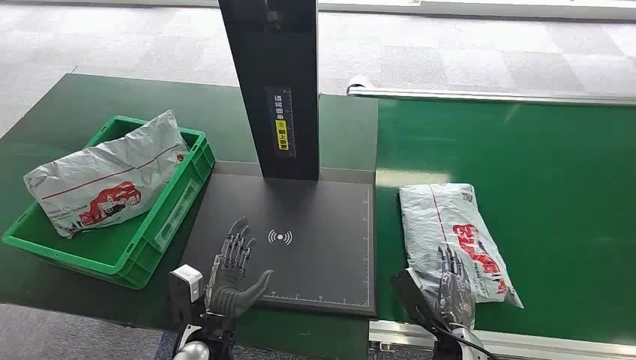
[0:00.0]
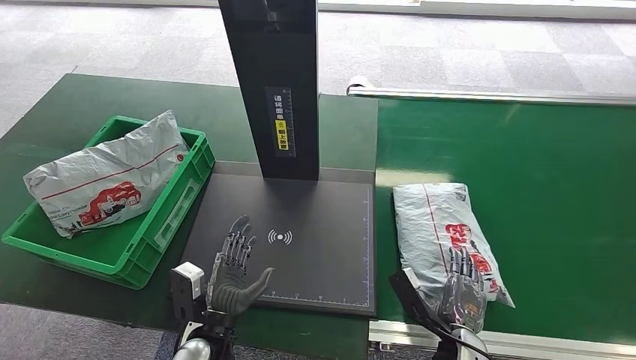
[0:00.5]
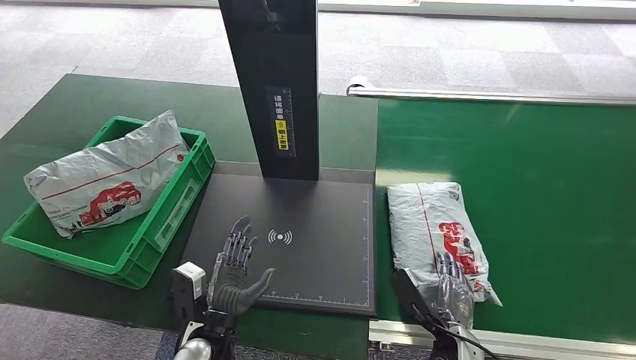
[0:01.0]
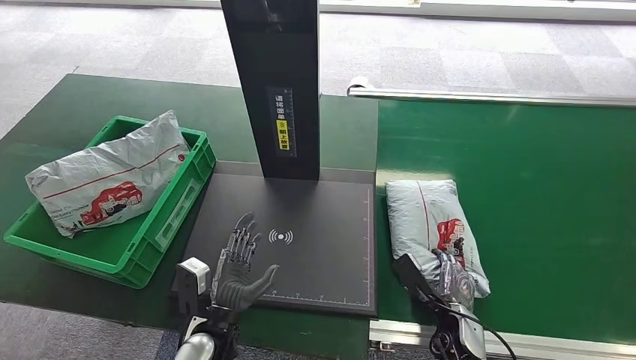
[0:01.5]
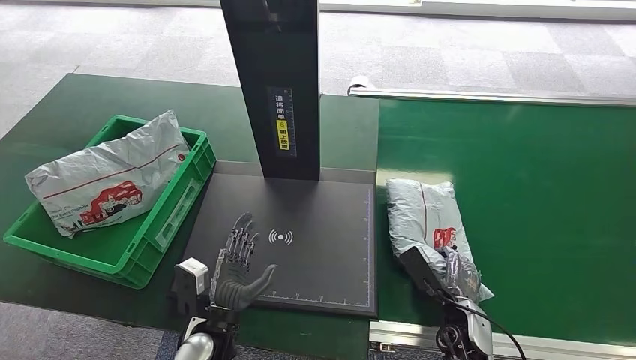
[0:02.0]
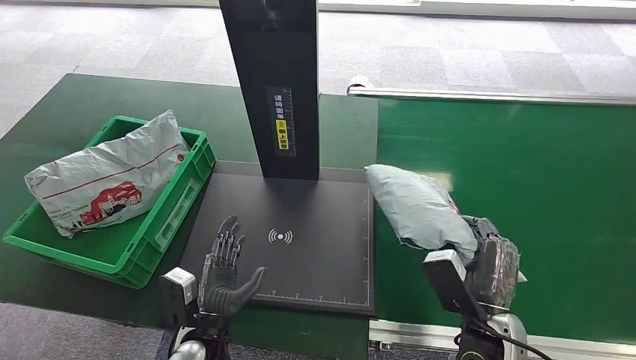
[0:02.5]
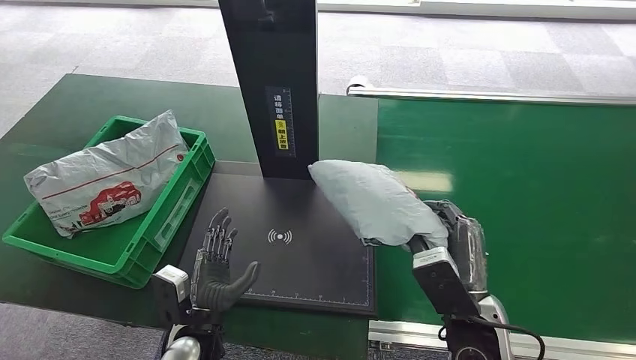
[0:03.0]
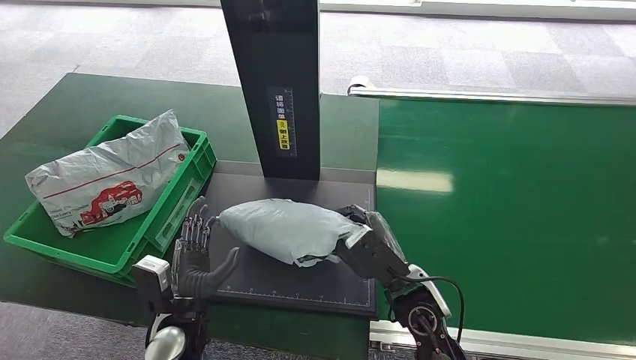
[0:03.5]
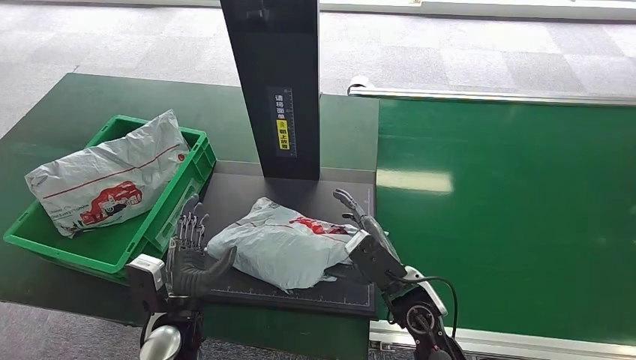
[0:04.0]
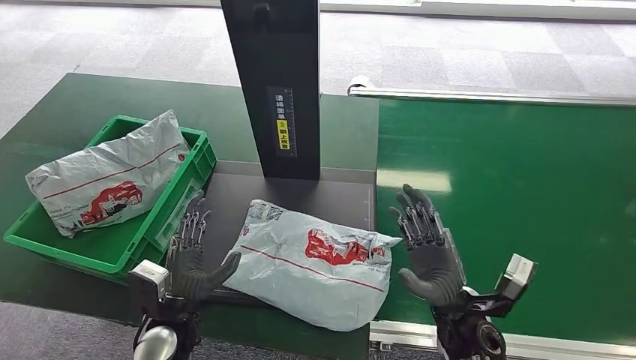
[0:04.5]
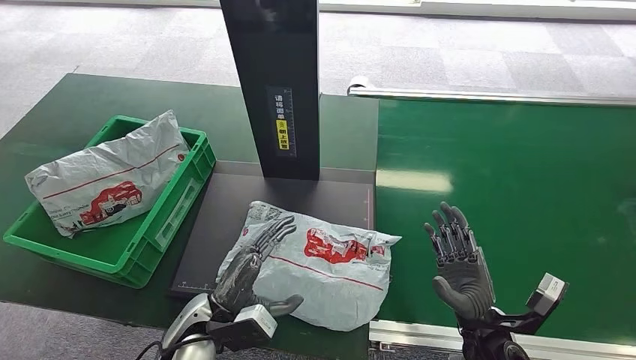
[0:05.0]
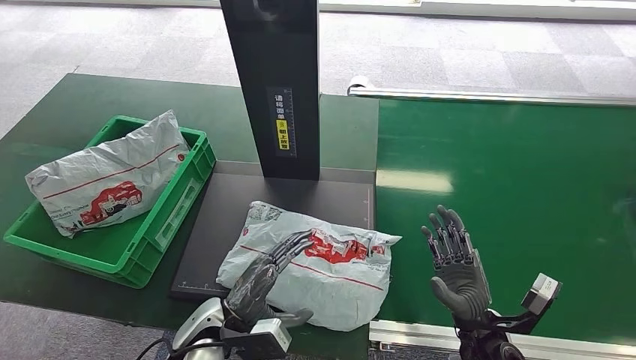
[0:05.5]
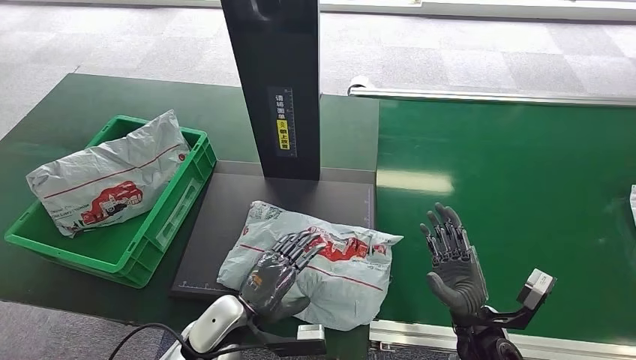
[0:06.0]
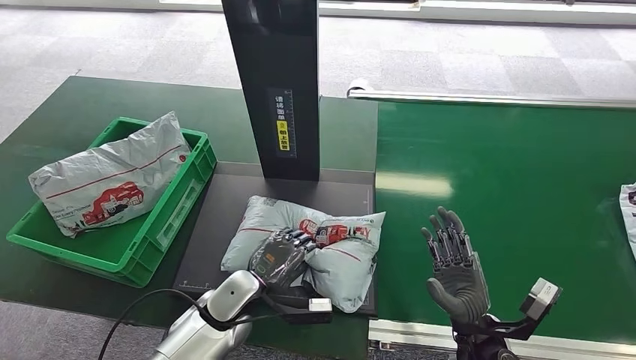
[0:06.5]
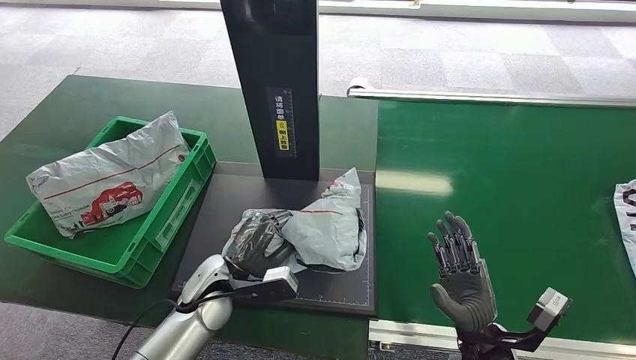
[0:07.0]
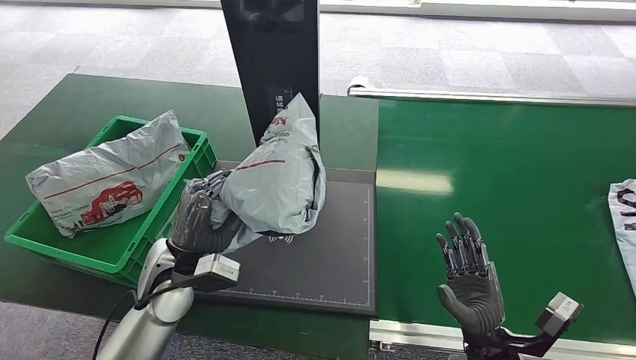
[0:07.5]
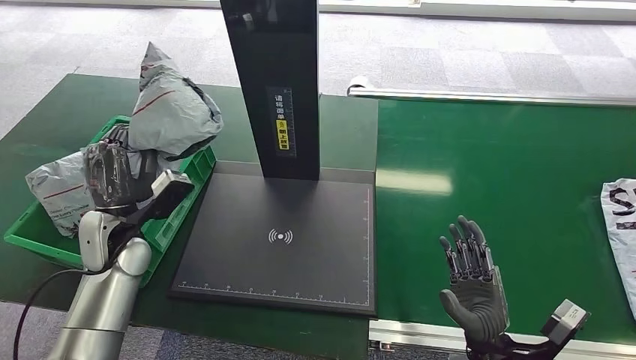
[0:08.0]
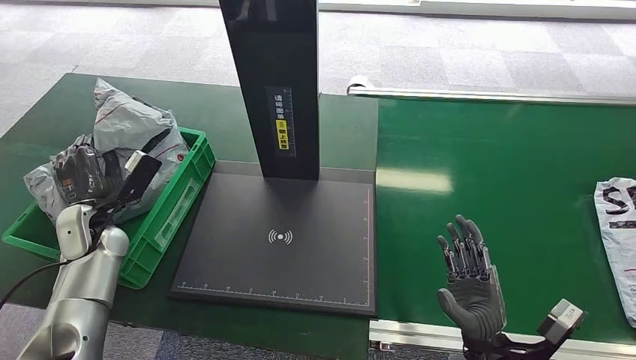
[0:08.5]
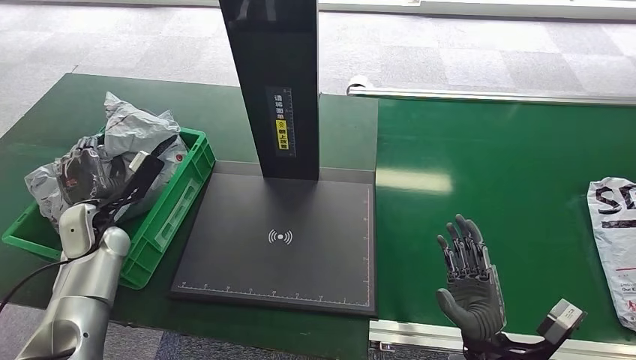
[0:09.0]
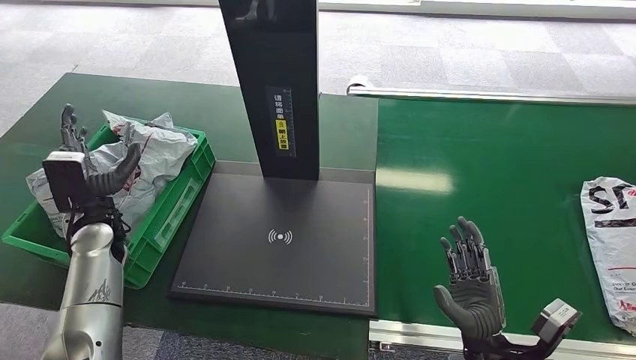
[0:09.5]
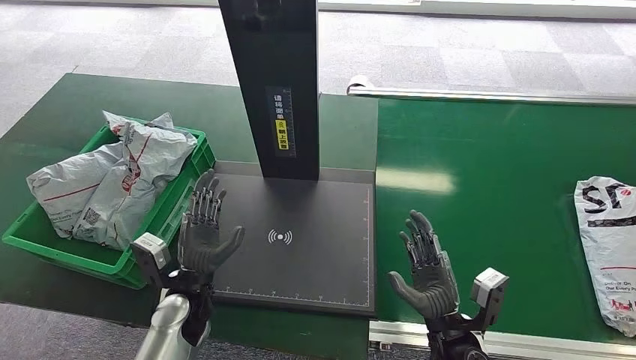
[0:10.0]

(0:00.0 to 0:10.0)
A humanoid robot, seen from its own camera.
Step, 0:00.0 - 0:03.0: Pick up the package from the conveyor belt.
Step, 0:03.5 - 0:05.0: Place the package onto the inbound machine.
Step, 0:05.5 - 0:07.5: Pick up the package from the inbound machine.
Step, 0:08.0 - 0:10.0: Place the package into the parcel locker.
0:02.0 - 0:04.0: The left hand travels to the left by about 5 cm. The right hand shifts some 15 cm to the left and upward.
0:04.0 - 0:06.0: The left hand heads to the right, covering some 5 cm; the right hand moves to the right and downward, approximately 15 cm.

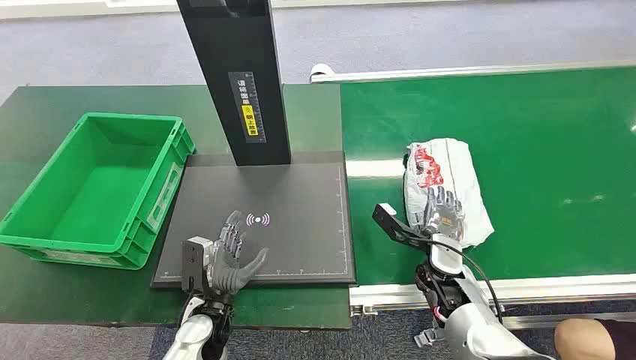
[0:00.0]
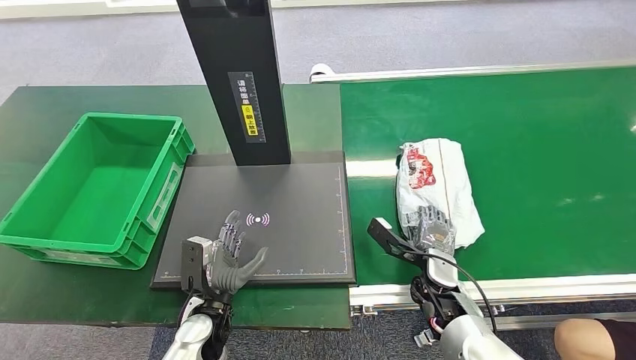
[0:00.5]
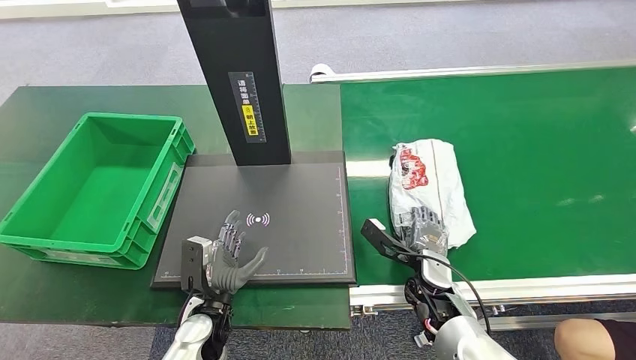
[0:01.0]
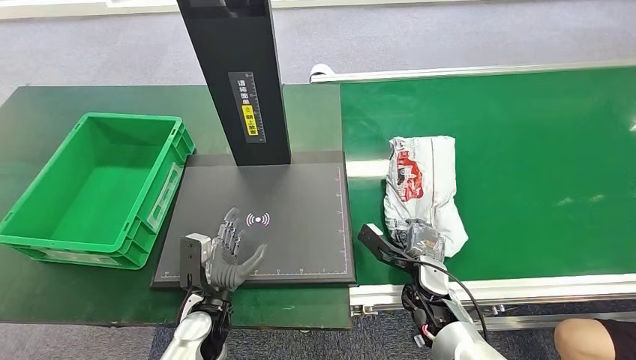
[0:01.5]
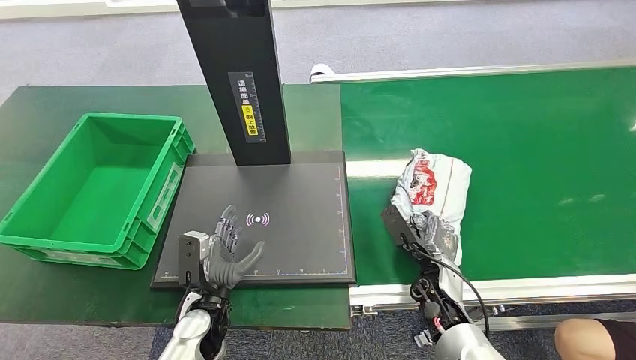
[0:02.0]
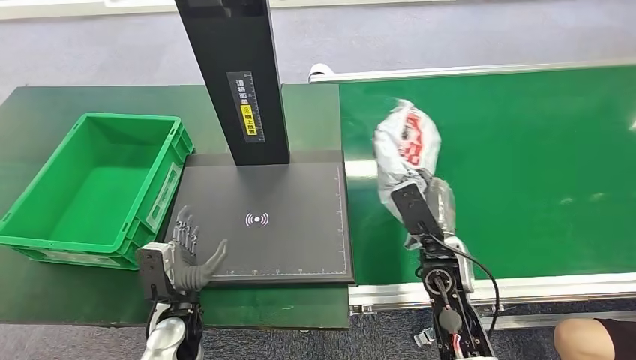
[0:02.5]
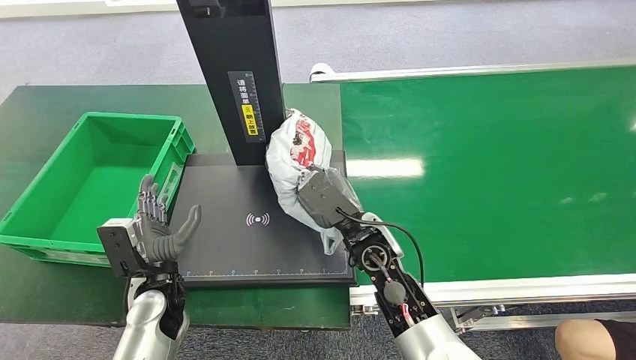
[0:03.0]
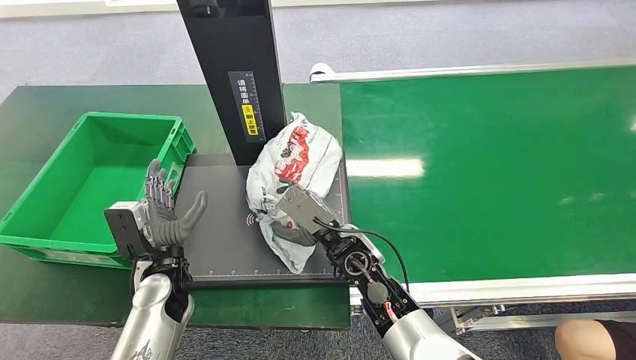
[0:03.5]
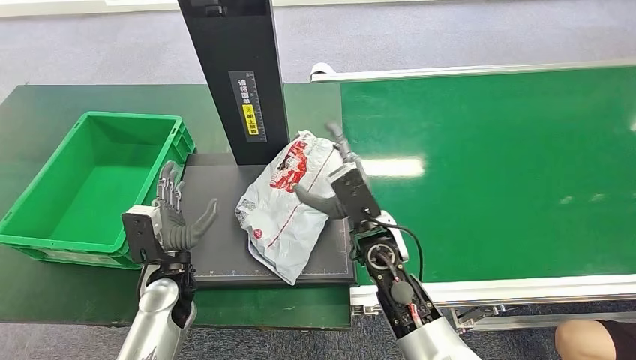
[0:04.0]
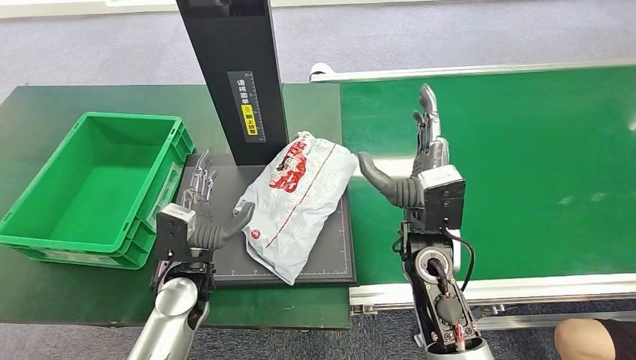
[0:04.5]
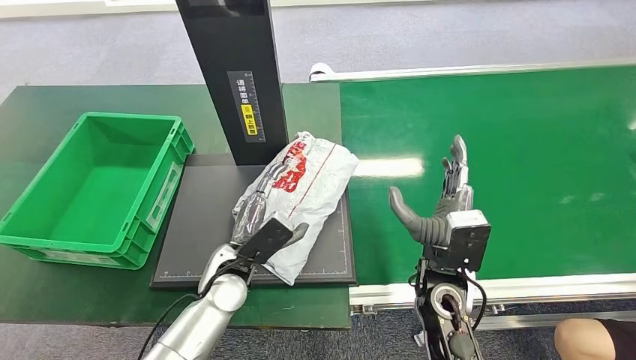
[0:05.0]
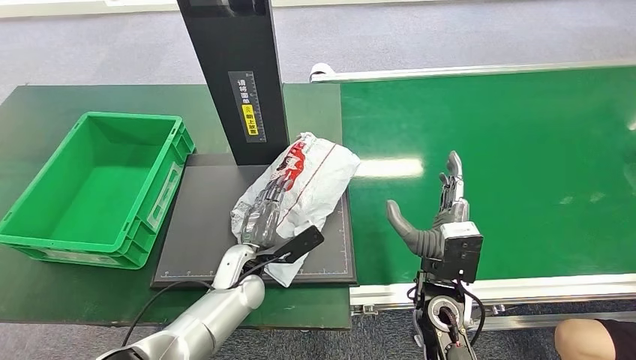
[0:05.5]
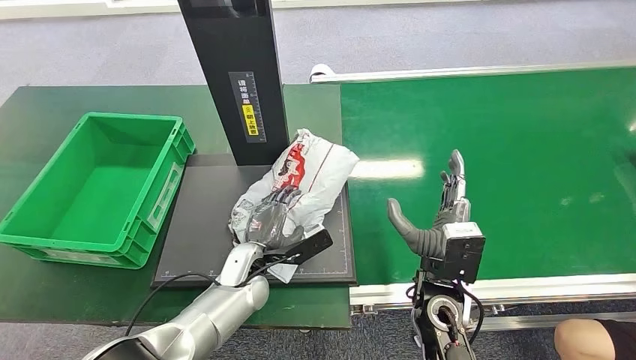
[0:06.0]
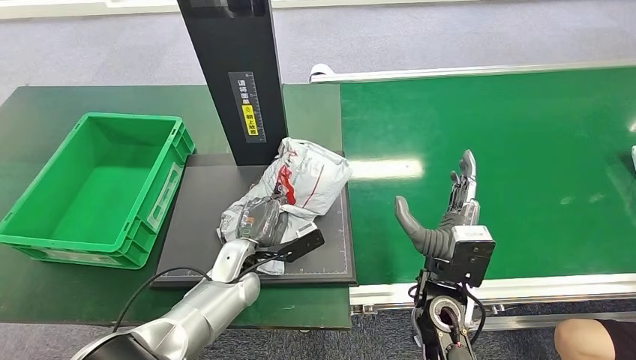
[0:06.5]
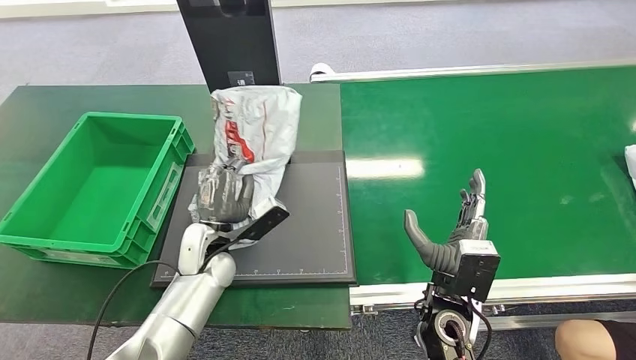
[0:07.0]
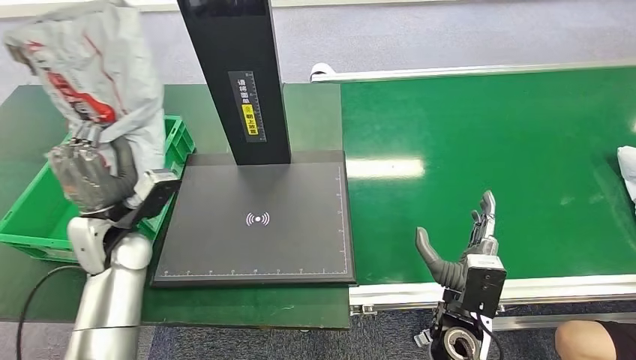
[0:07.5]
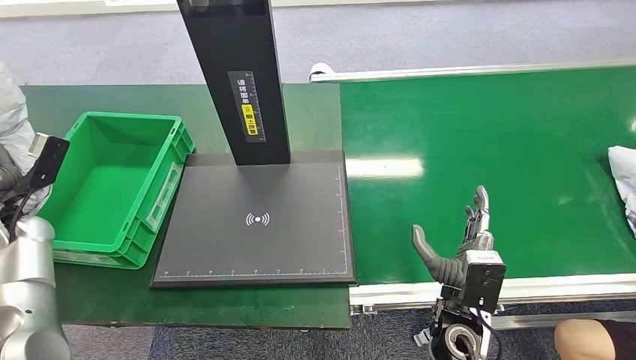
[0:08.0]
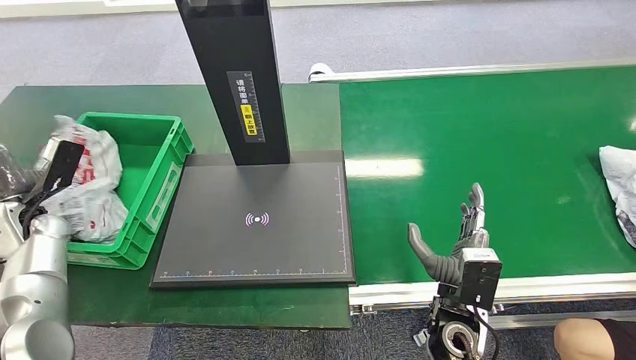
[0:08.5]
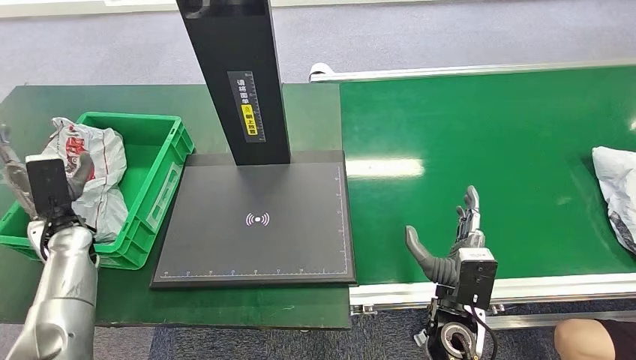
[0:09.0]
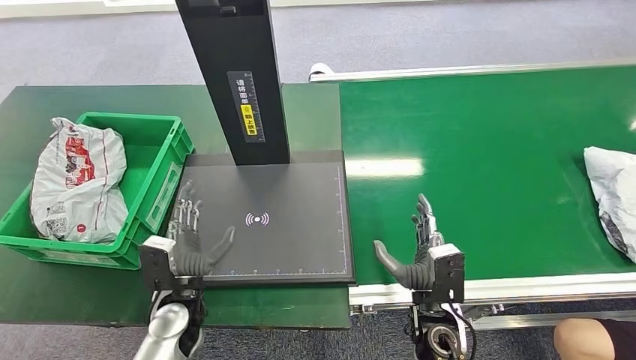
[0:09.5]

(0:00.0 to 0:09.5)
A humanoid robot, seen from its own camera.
Step, 0:00.0 - 0:03.0: Pick up the package from the conveyor belt.
Step, 0:03.5 - 0:05.5: Place the package onto the inbound machine.
Step, 0:06.0 - 0:07.5: Pick up the package from the inbound machine.
Step, 0:08.0 - 0:09.5: Place the package into the parcel locker.
0:02.0 - 0:04.0: The left hand goes roughly 10 cm upward and to the left. Meanwhile the right hand heads to the left and upward, covering about 20 cm.
0:04.0 - 0:05.5: The left hand travels to the right by approximately 10 cm. The right hand shifts approximately 10 cm to the right and backward.
